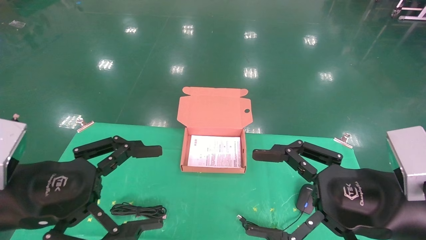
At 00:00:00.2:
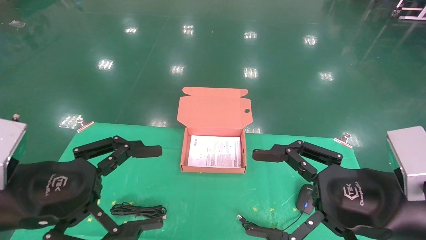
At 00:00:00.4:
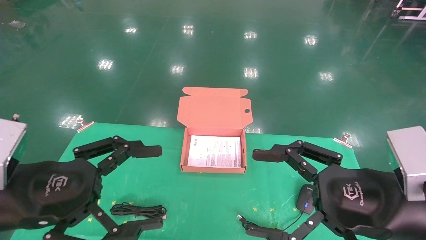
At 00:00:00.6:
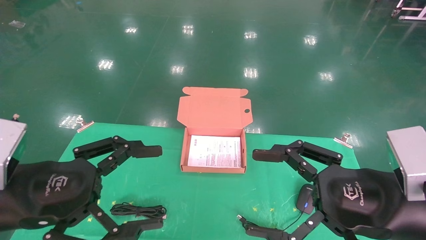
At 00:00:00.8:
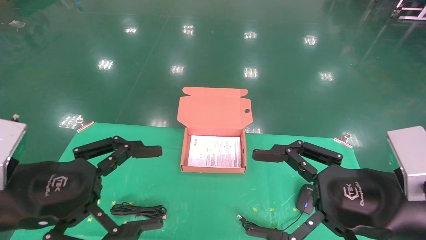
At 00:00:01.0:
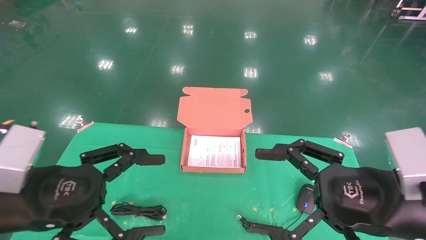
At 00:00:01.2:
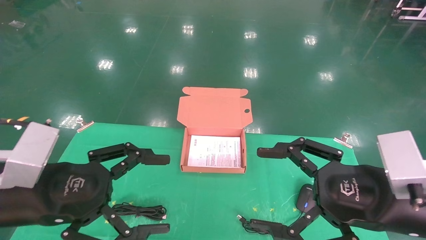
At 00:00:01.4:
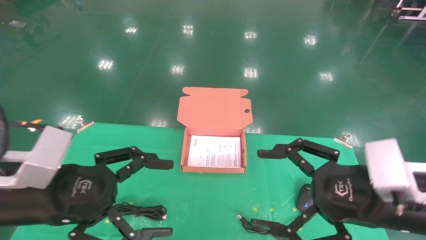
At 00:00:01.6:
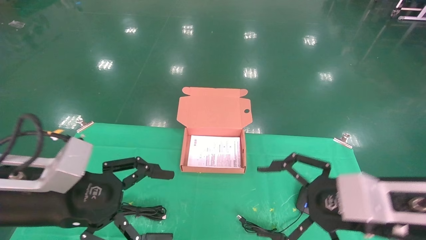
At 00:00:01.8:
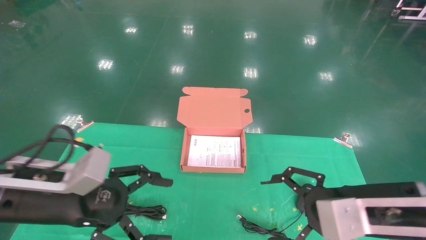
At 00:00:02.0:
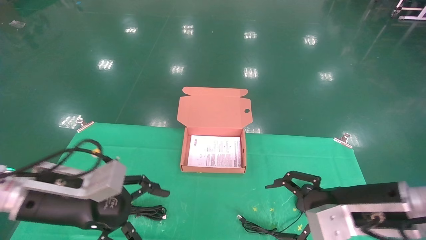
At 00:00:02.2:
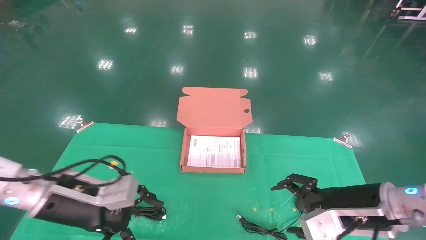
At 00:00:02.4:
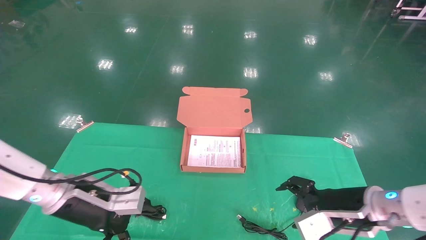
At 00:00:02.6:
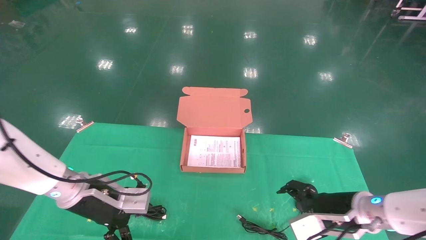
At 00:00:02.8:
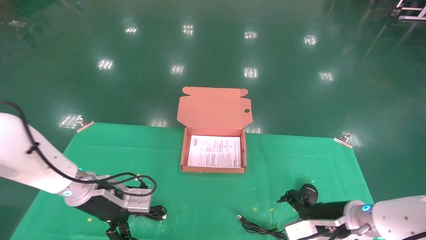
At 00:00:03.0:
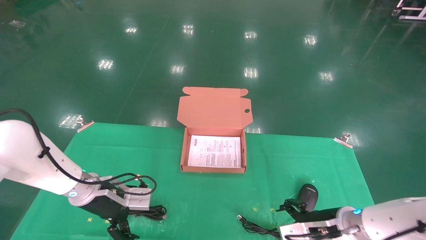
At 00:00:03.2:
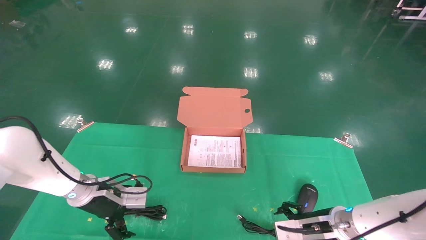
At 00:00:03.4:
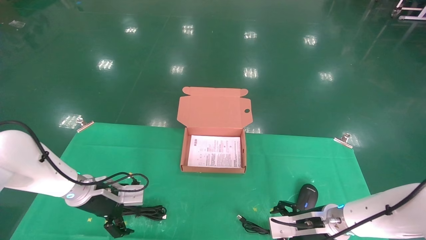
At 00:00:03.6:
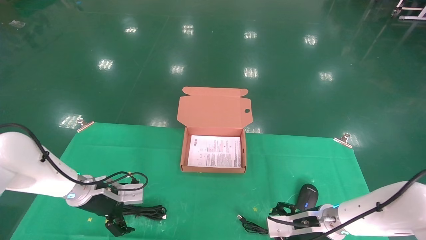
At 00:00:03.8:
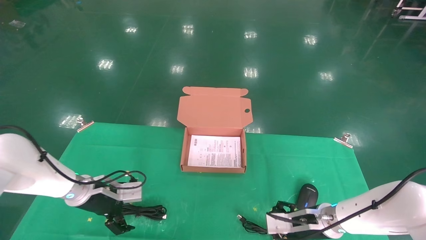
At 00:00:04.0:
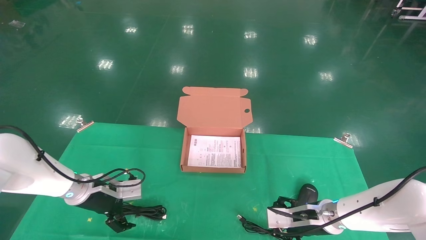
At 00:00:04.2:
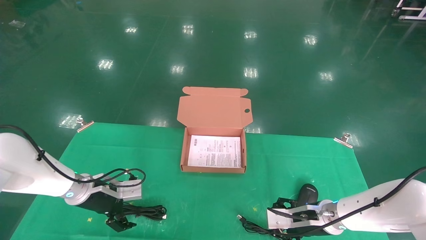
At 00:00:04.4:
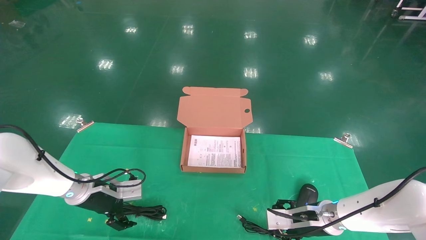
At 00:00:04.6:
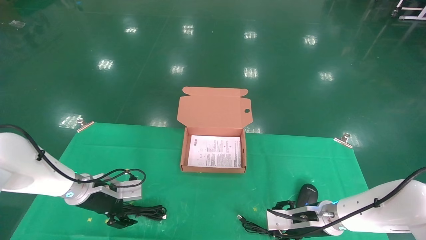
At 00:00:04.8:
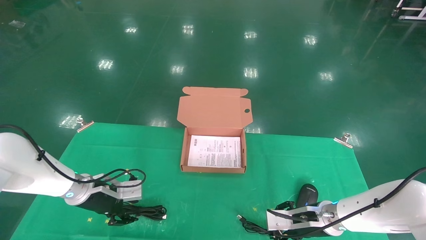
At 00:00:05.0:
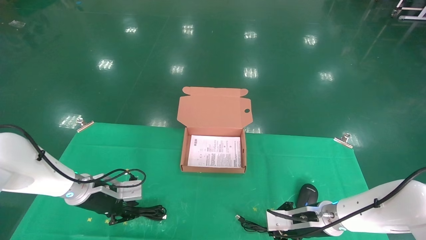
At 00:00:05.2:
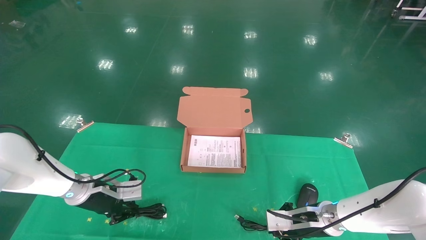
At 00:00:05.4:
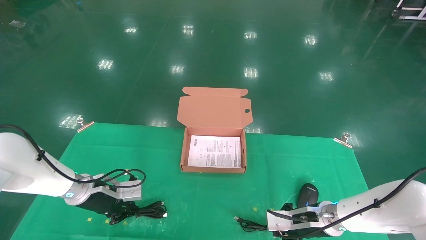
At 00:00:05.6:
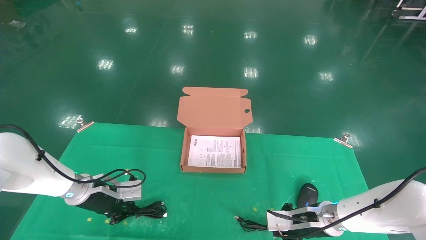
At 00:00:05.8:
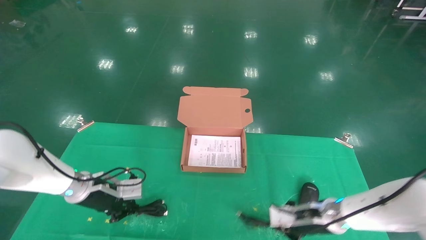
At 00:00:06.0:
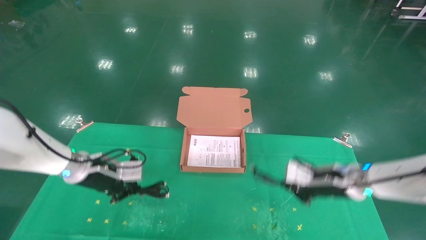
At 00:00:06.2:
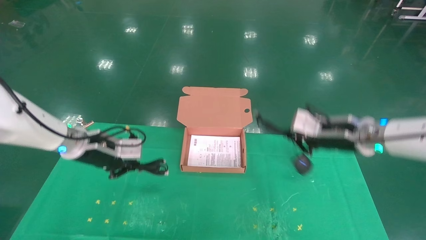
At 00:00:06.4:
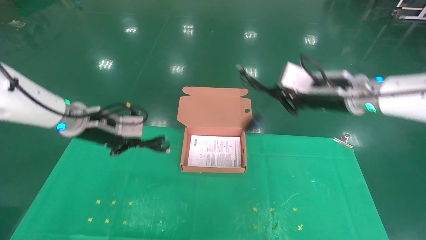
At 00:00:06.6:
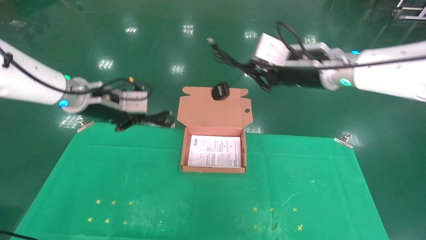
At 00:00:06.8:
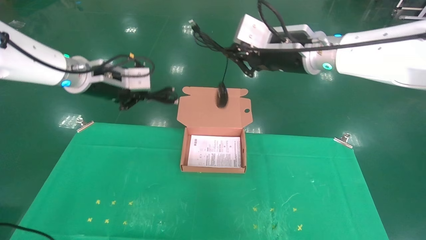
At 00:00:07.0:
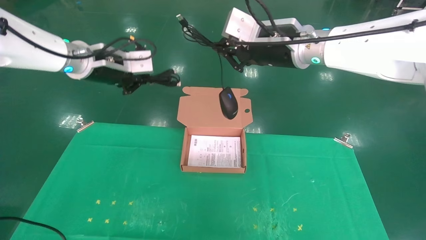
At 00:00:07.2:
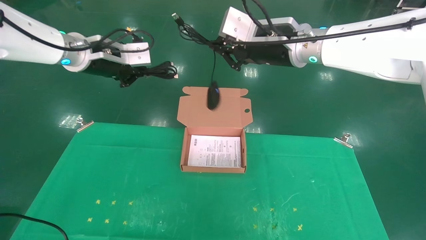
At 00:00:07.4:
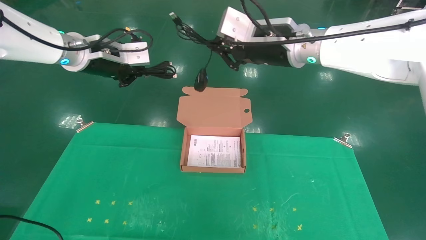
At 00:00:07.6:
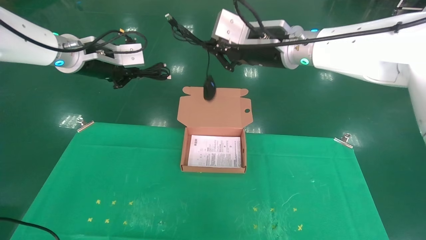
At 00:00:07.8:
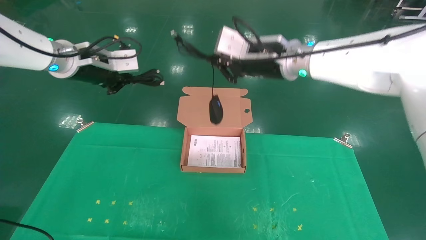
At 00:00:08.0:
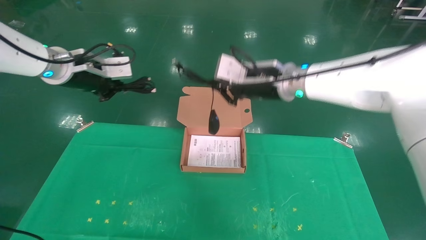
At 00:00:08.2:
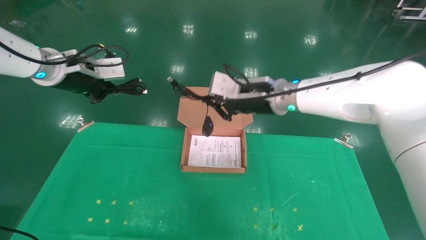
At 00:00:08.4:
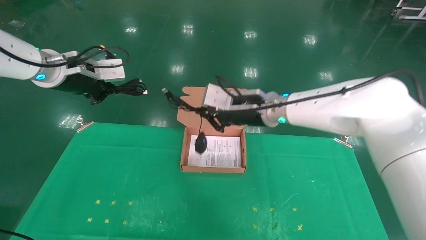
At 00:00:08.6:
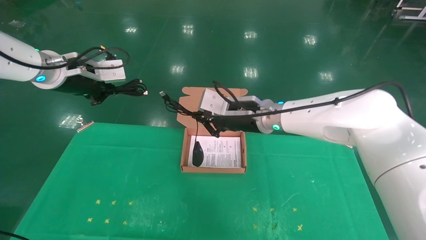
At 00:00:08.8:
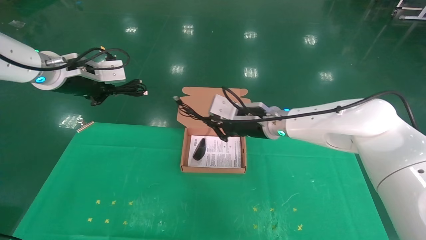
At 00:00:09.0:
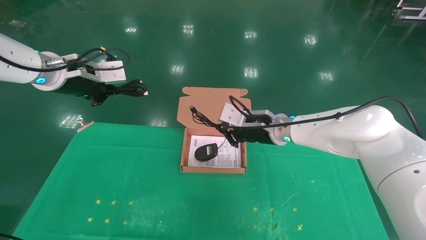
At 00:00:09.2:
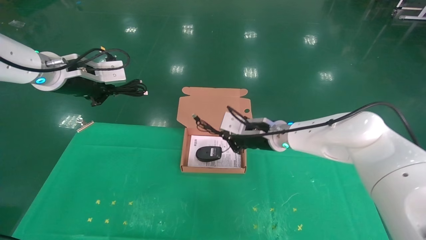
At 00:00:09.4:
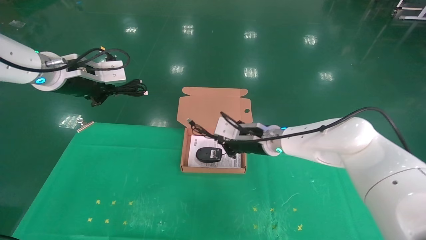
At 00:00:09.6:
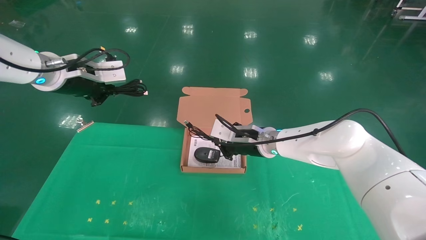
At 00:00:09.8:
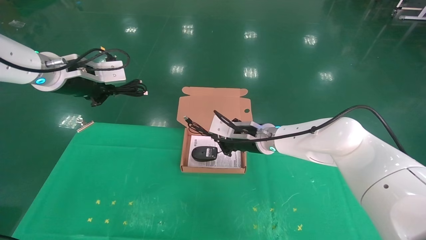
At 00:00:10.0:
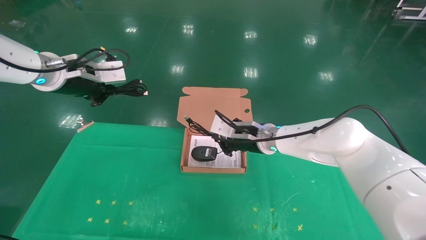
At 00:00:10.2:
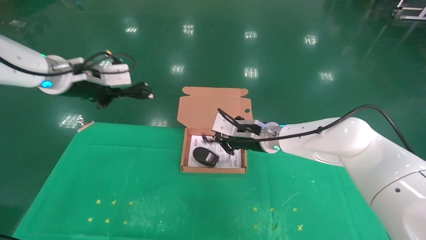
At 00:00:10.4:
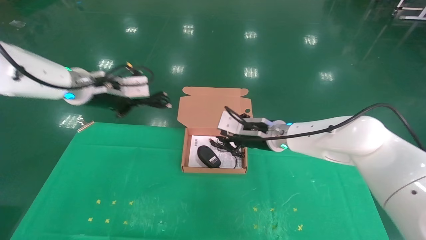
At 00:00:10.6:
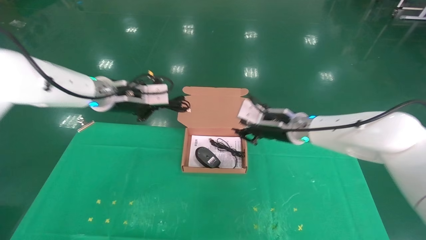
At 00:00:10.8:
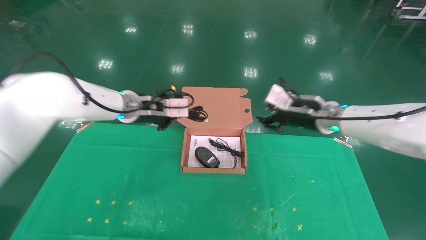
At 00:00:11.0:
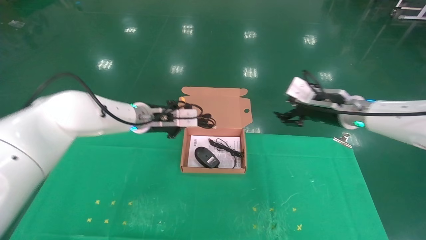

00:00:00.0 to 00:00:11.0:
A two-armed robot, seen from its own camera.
Task of the whole recording: grasp data cable left put into box grasp mouse right put into box.
Step, 00:00:00.8 to 00:00:06.2: Grab and pick up both the mouse and power cord from the accessory packaging area at the same time.
00:00:01.6 to 00:00:03.2: The right gripper shifts approximately 20 cm downward and forward. Meanwhile the left gripper moves forward and downward, roughly 20 cm.
00:00:03.2 to 00:00:04.8: The left gripper closes up. Meanwhile the right gripper closes up.
00:00:04.8 to 00:00:06.2: The right gripper shifts roughly 20 cm upward, and closes up. Meanwhile the left gripper goes some 15 cm upward, and closes its fingers.
00:00:06.2 to 00:00:07.8: The left gripper shifts about 15 cm upward. The right gripper is displaced to the left and upward by approximately 20 cm.
00:00:07.8 to 00:00:09.4: The right gripper is displaced downward by roughly 15 cm.
00:00:09.4 to 00:00:11.0: The left gripper moves to the right, downward and forward, about 20 cm, while the right gripper goes roughly 15 cm to the right and upward, and opens.

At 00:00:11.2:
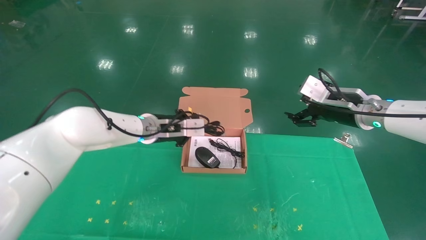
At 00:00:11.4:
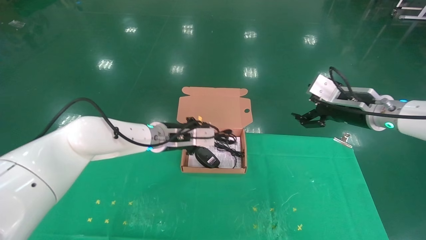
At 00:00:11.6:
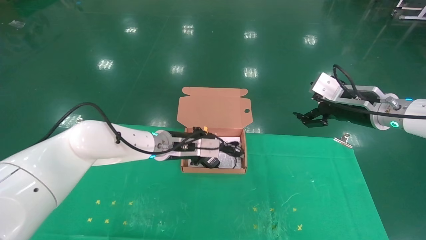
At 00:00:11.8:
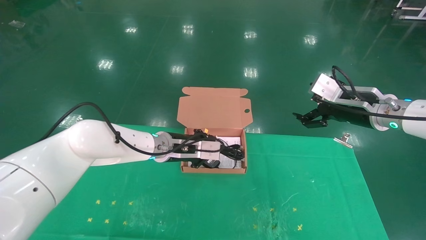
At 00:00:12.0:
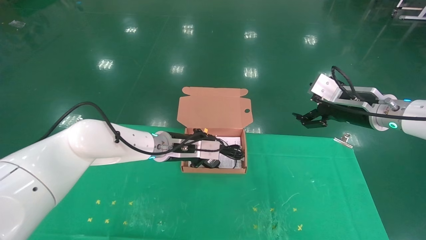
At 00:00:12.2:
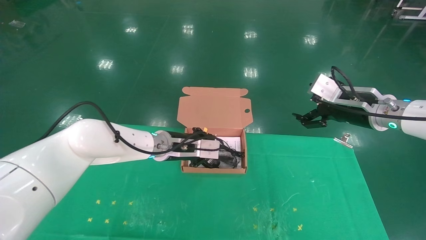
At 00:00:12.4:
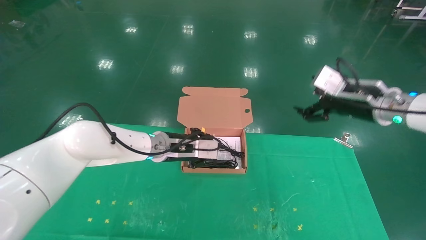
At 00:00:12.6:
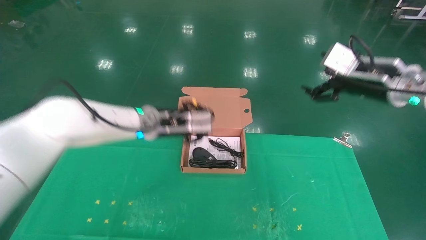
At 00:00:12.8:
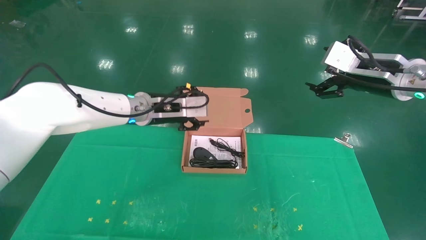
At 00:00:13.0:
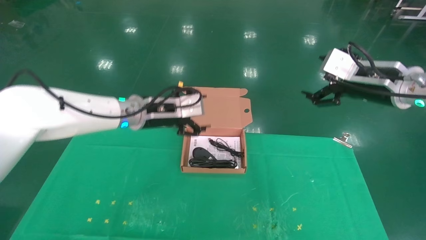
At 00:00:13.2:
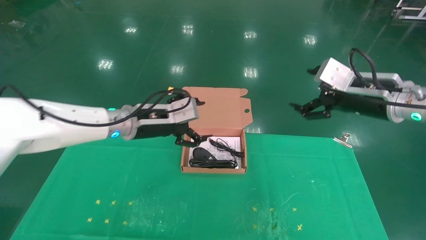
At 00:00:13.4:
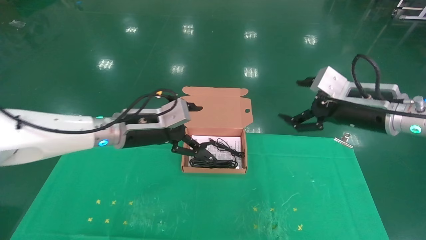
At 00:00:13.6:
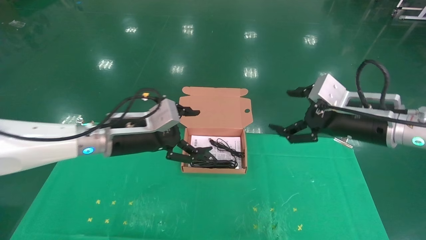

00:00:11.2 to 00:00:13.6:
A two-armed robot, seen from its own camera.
Task of the whole recording: grasp data cable left put into box grasp mouse right put into box.
00:00:11.2 to 00:00:12.4: The right gripper shifts by approximately 5 cm.
00:00:12.4 to 00:00:13.6: The left gripper heads backward and to the left, covering roughly 10 cm, and opens. The right gripper shifts about 5 cm backward.
